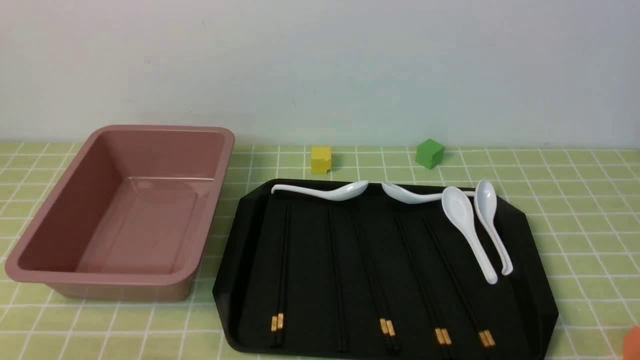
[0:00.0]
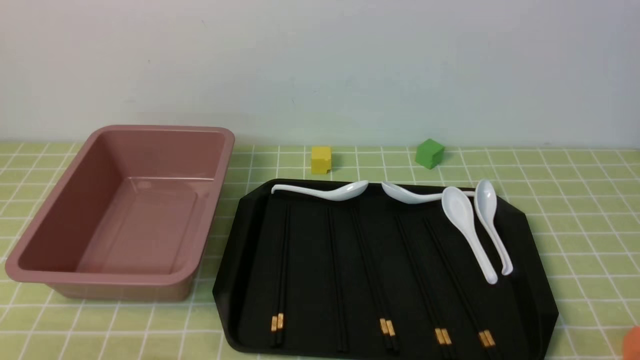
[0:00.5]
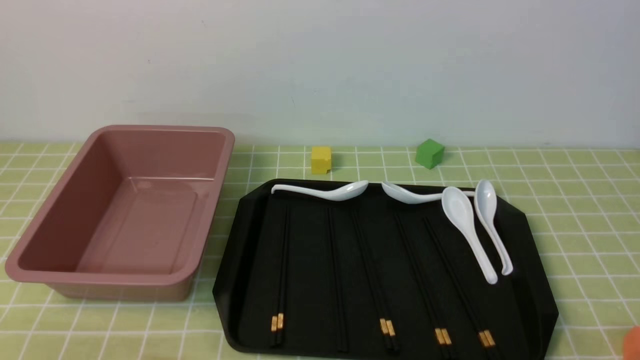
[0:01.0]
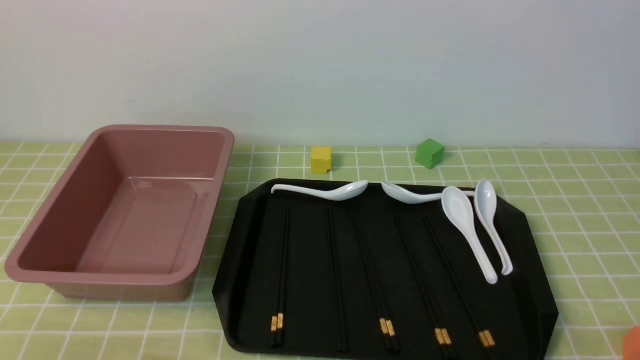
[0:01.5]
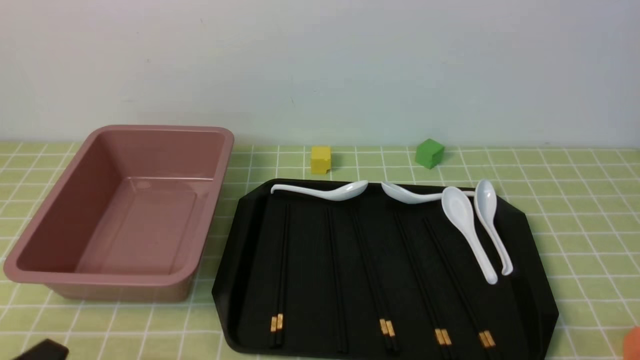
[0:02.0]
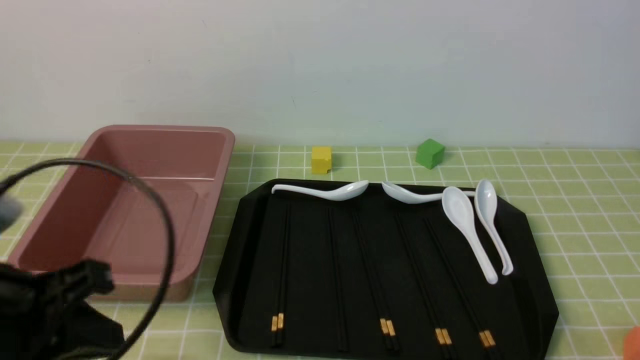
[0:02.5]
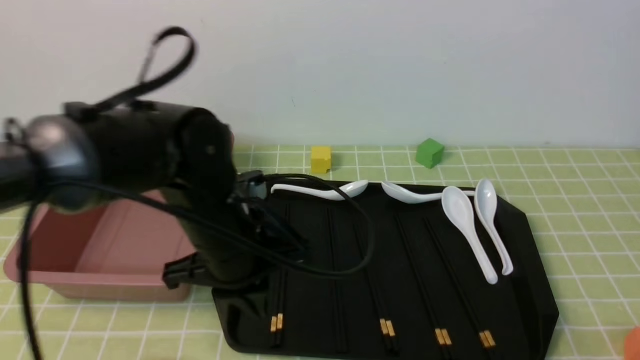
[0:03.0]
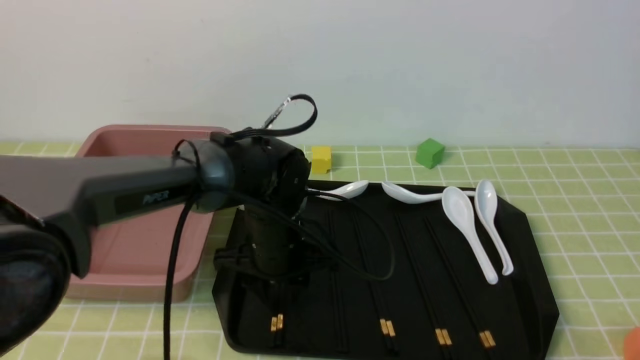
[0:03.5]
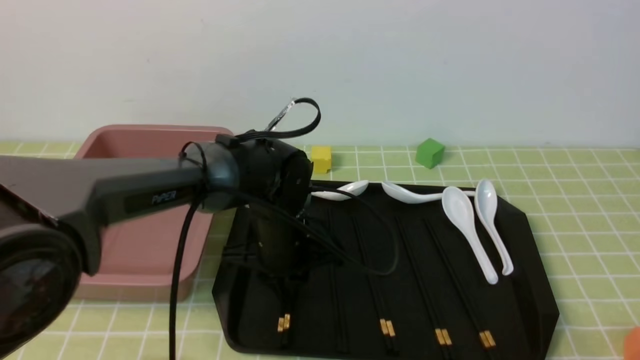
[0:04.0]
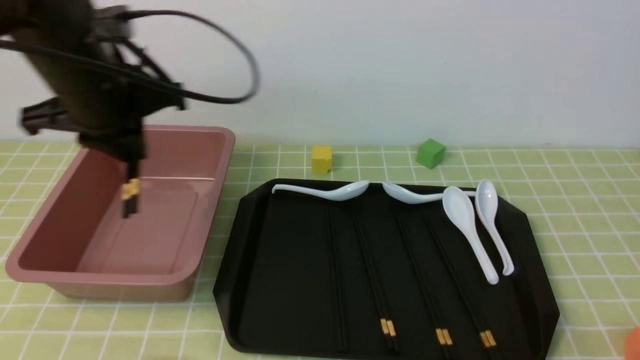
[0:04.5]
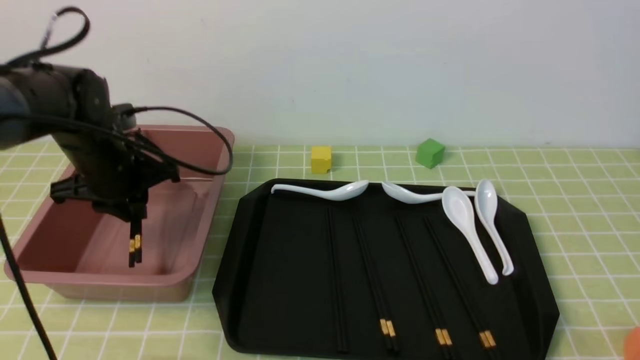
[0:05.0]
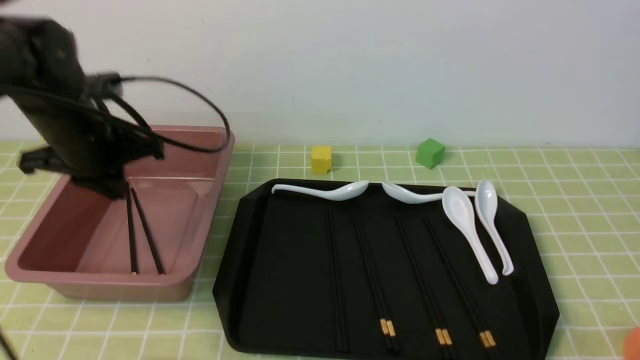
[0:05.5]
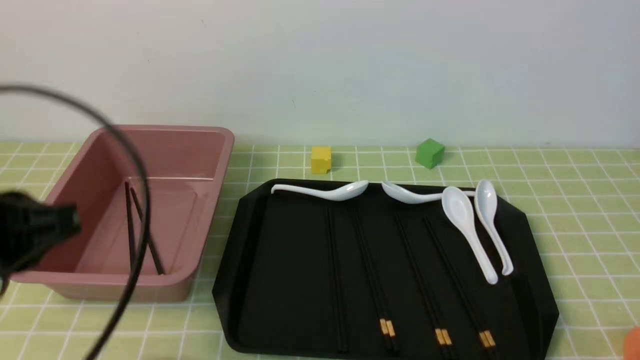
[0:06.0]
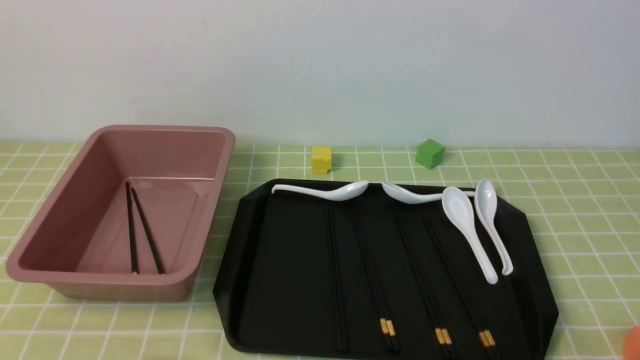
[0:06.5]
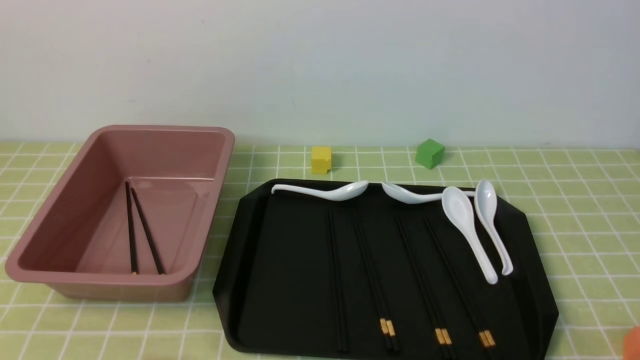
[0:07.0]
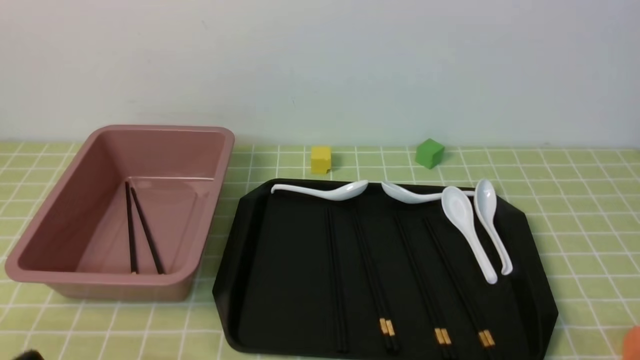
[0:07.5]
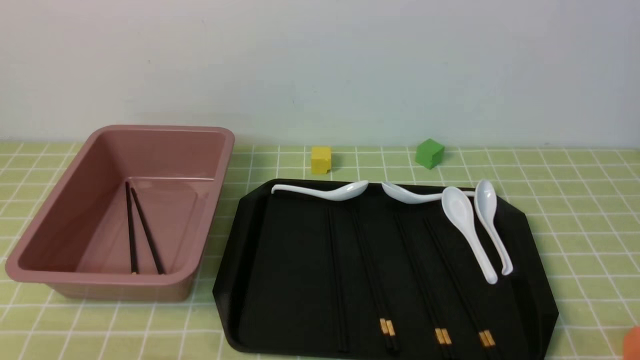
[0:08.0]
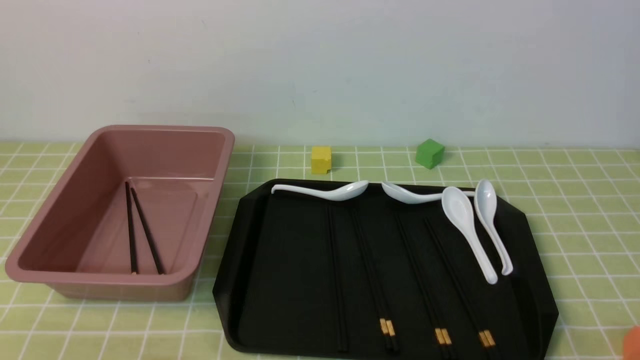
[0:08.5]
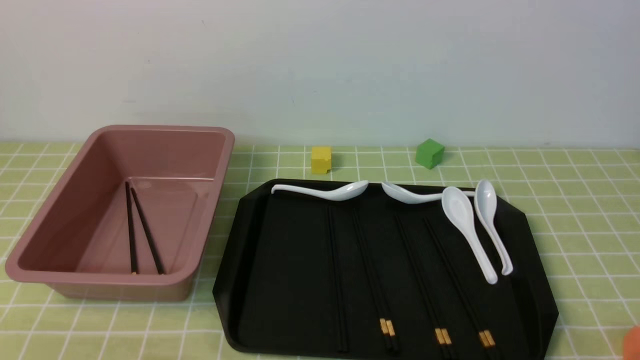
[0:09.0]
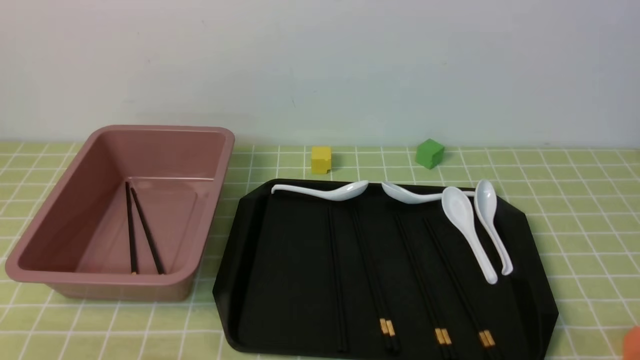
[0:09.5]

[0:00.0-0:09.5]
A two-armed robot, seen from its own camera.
Step, 0:00.0 to 0:04.0: use the left arm to grab a pair of chopsticks.
Step, 0:04.5 to 0:05.5: use the left arm to put the chopsticks into the lunch box.
0:02.0 to 0:04.0: The left gripper is displaced forward and to the right by some 35 cm, and closes, then opens again.
0:04.0 to 0:05.5: The left gripper shifts approximately 20 cm to the left and upward.
0:05.5 to 0:07.5: The left gripper goes some 35 cm backward, and closes its fingers.
